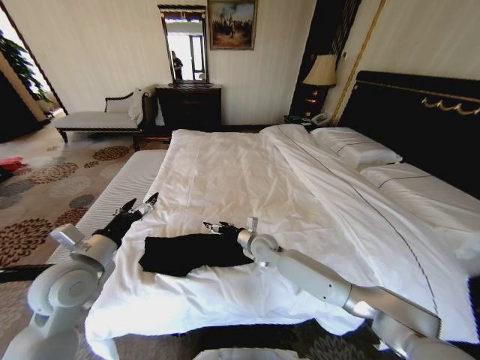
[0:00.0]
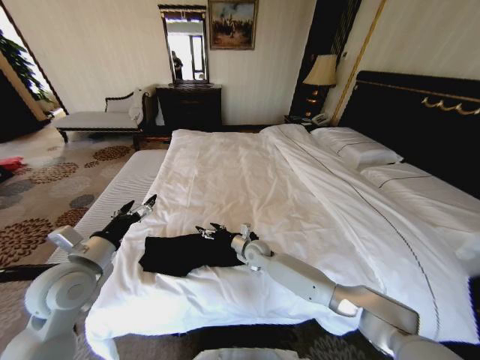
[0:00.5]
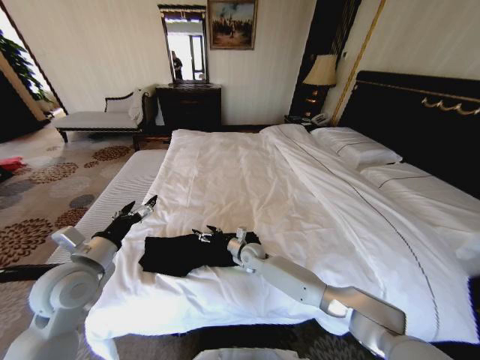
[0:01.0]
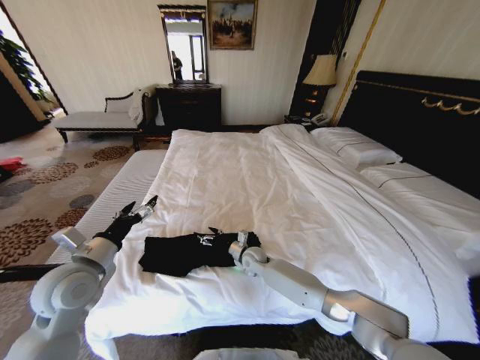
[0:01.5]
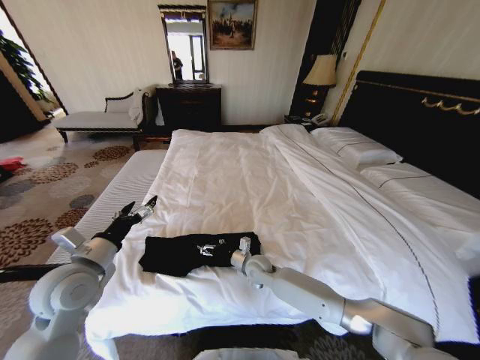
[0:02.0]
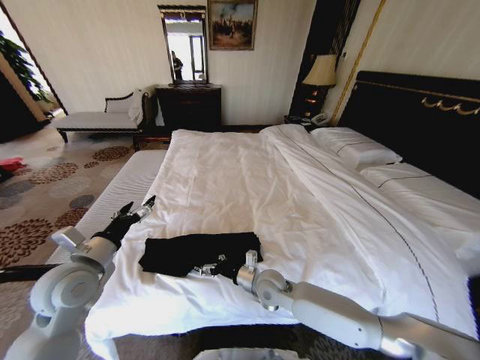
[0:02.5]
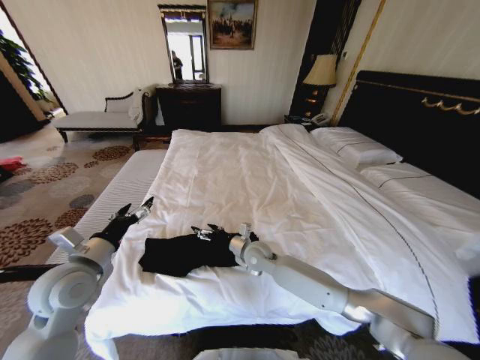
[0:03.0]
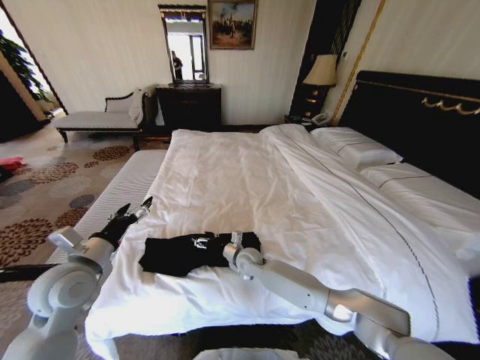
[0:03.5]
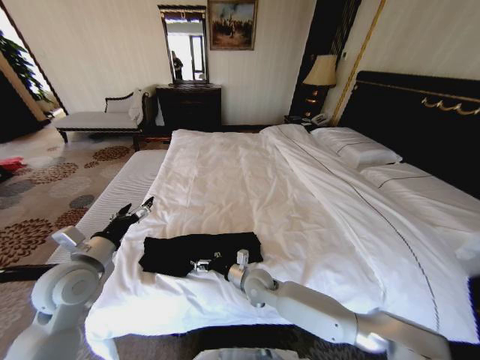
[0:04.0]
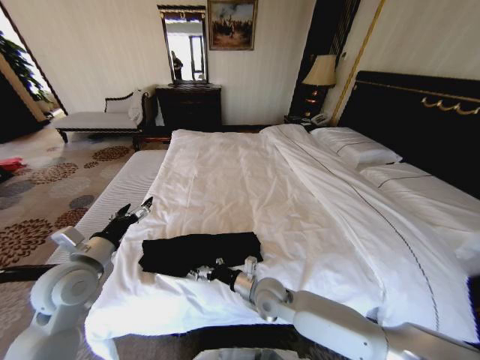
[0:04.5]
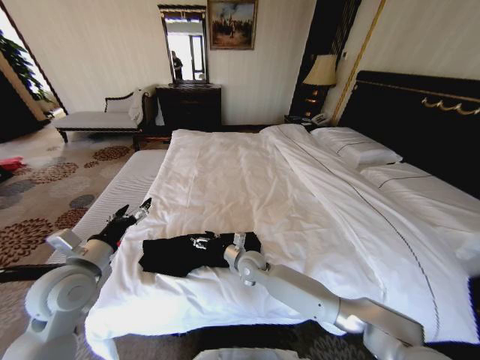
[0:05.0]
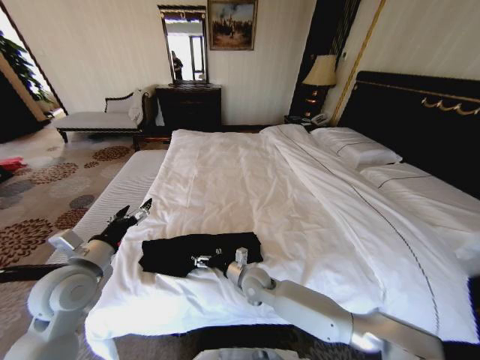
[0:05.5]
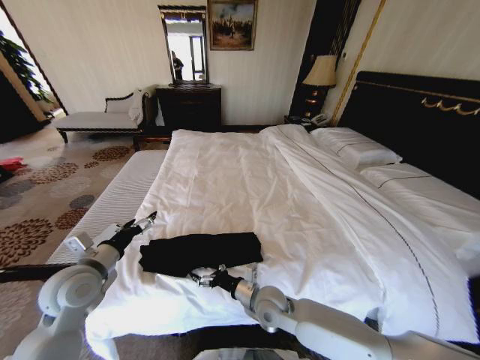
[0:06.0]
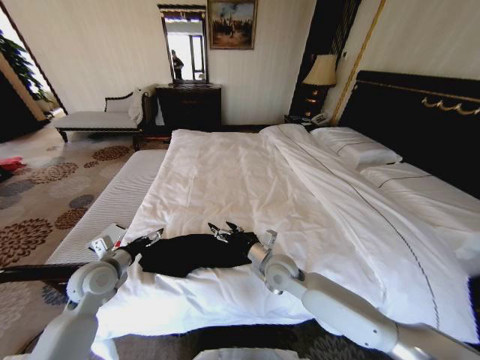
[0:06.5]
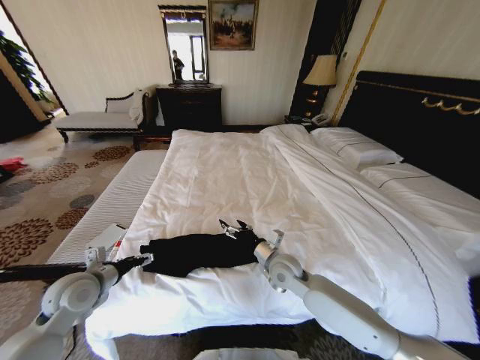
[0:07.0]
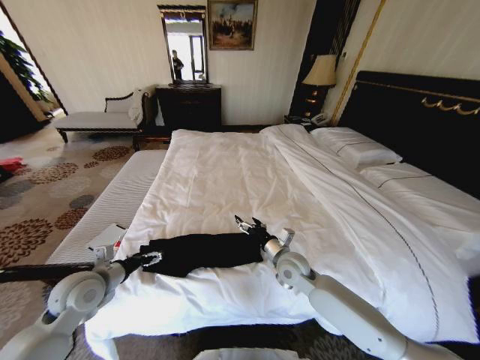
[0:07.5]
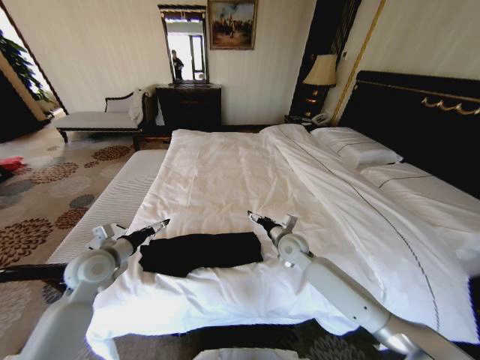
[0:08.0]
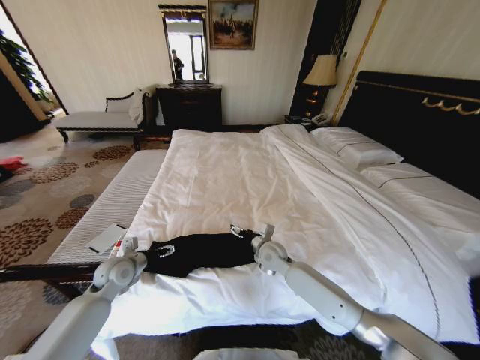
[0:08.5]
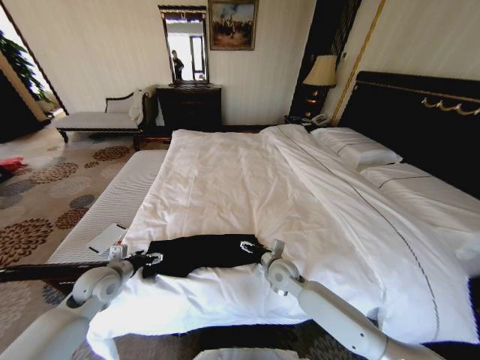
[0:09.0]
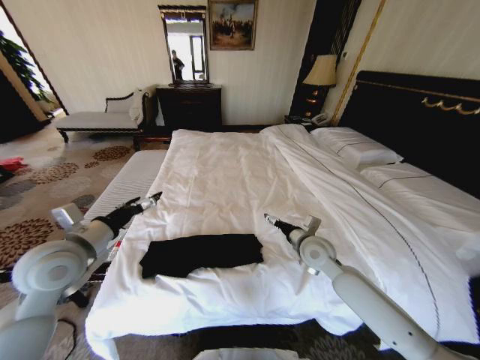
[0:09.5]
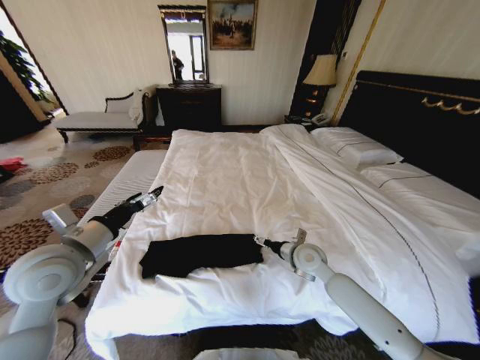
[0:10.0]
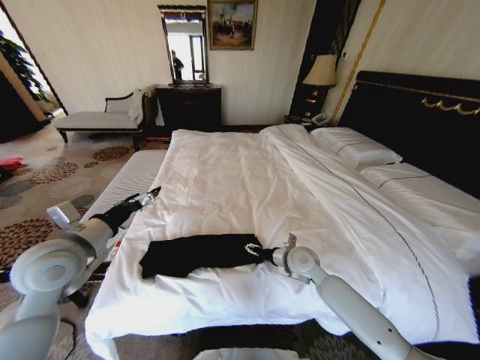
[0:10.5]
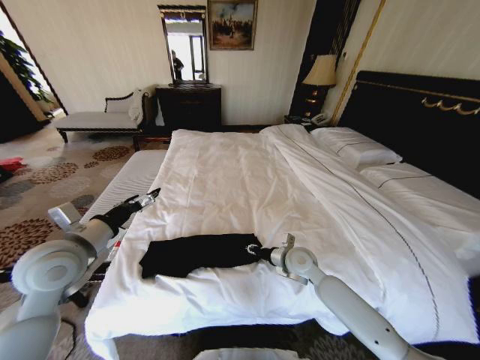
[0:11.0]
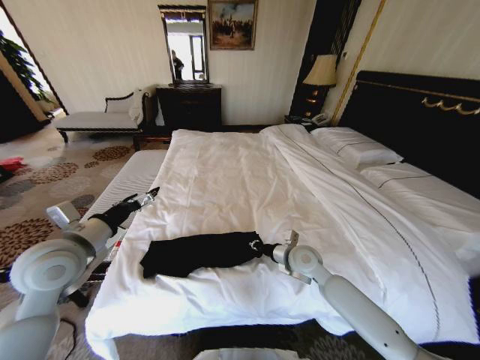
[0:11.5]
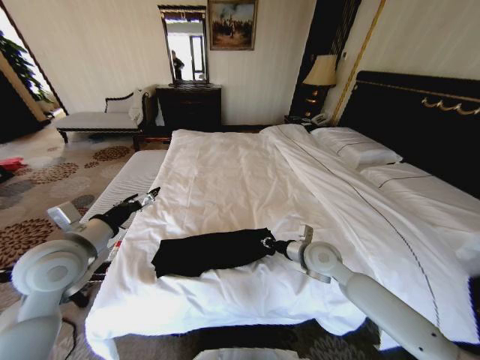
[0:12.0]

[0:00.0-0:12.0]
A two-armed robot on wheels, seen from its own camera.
Task of the whole recording: Fold the clothes on the bed.
0:00.0 to 0:02.0: The right gripper shifts roughly 5 cm downward.
0:02.0 to 0:04.0: The right gripper moves forward and backward over roughly 10 cm, changing direction 2 times.
0:04.0 to 0:06.0: The right gripper swings forward and backward, roughly 10 cm each way, with 2 reversals.
0:06.0 to 0:08.0: The right gripper heads forward and to the right, covering roughly 20 cm; the left gripper goes roughly 5 cm forward.
0:08.0 to 0:10.0: The right gripper reaches about 5 cm to the left, then returns. Meanwhile the left gripper travels upward and backward by some 15 cm.
0:10.0 to 0:12.0: The right gripper closes up.

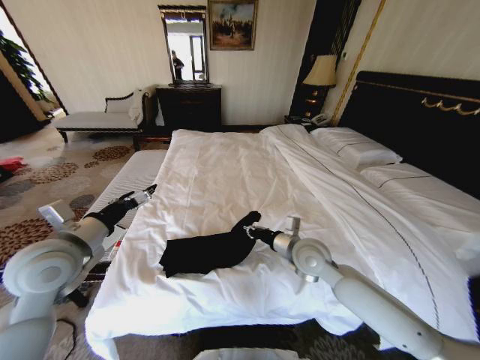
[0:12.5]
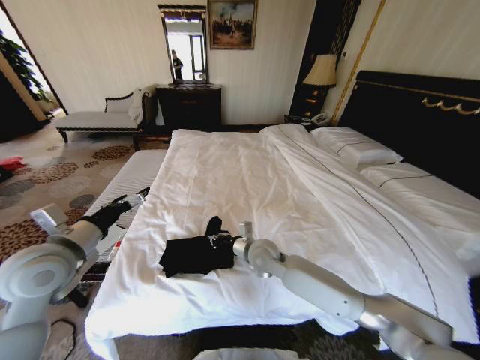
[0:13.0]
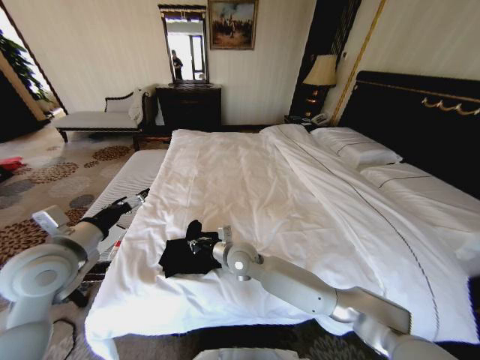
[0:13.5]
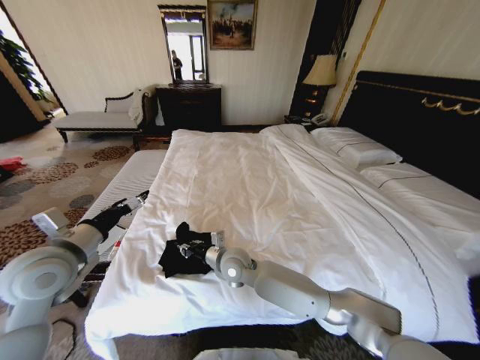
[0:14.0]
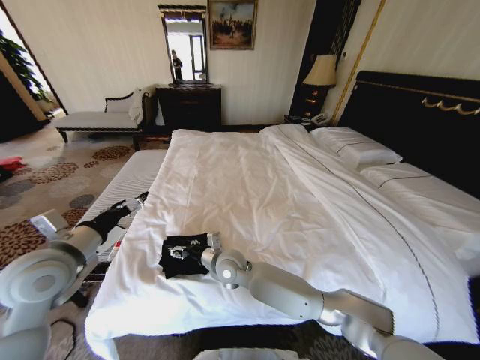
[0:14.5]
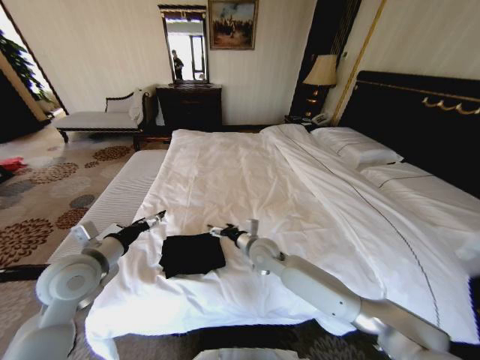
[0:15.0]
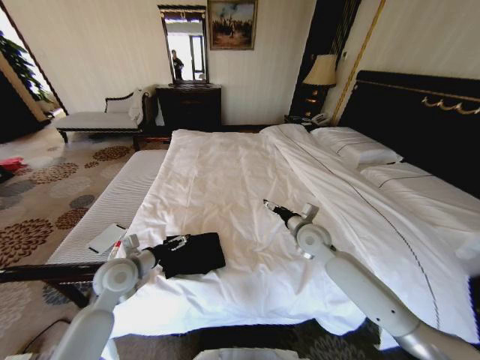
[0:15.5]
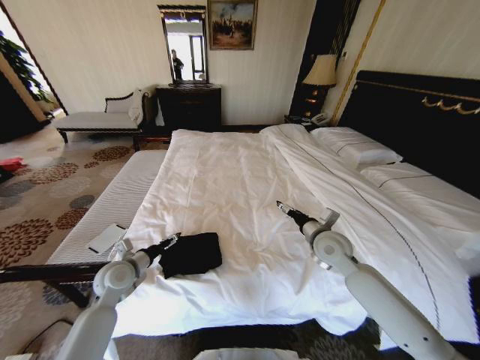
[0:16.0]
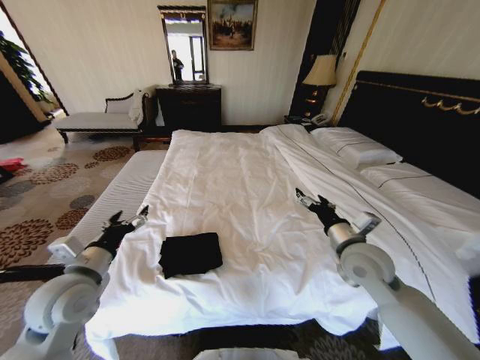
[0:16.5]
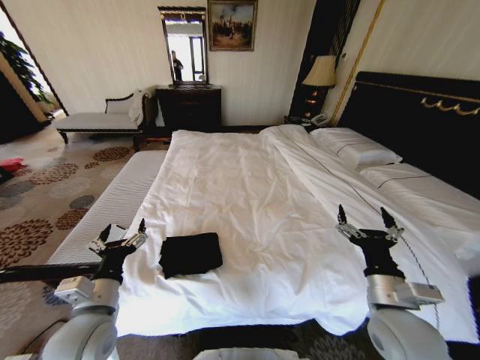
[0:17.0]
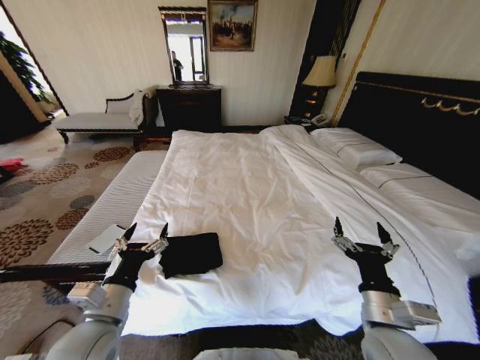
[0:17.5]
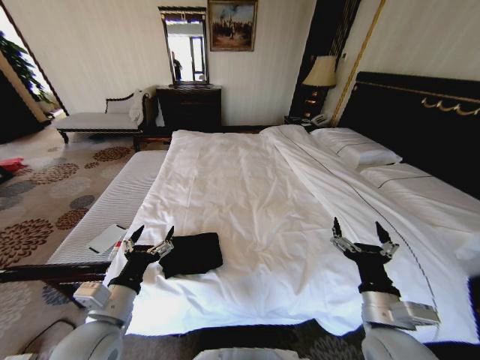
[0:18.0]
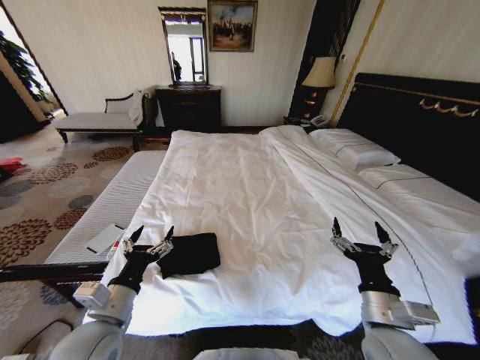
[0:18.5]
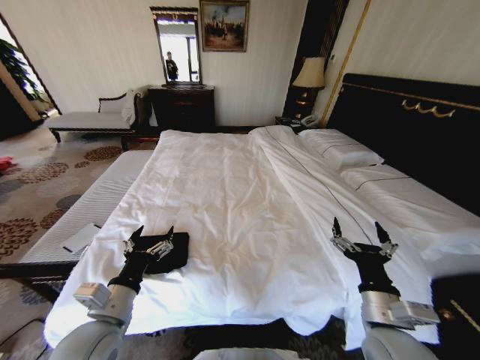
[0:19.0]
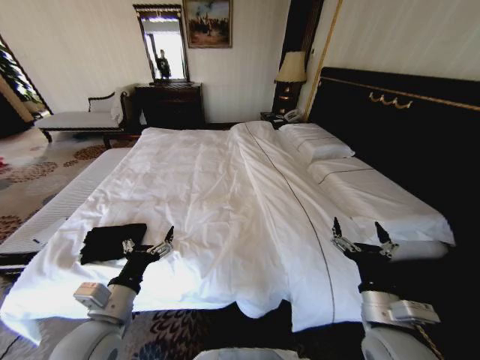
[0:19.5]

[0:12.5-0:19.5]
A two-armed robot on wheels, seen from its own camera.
Task of the whole recording: Fold the clothes on the bed.
0:12.5 to 0:14.5: The right gripper moves to the left, approximately 20 cm, and opens up.
0:14.5 to 0:16.0: The right gripper heads to the right, covering some 30 cm. The left gripper heads downward, covering approximately 20 cm.
0:16.0 to 0:17.5: The right gripper travels backward by roughly 25 cm, while the left gripper goes some 20 cm backward and upward.

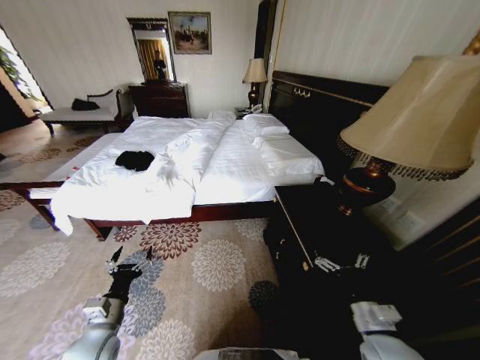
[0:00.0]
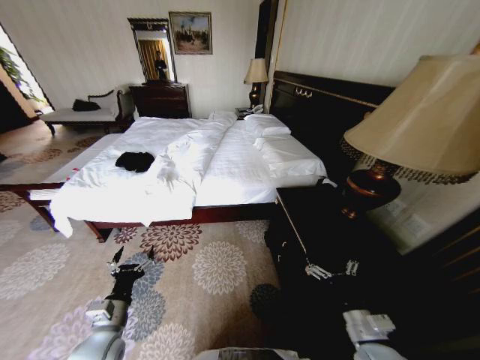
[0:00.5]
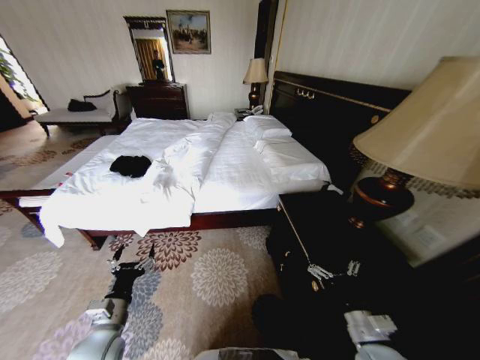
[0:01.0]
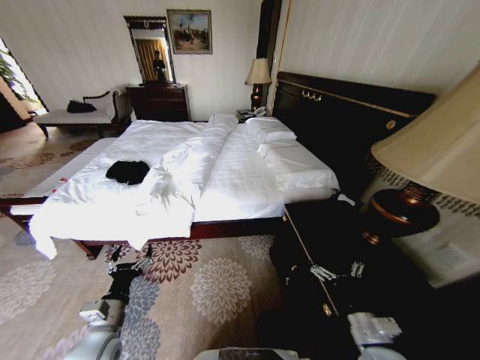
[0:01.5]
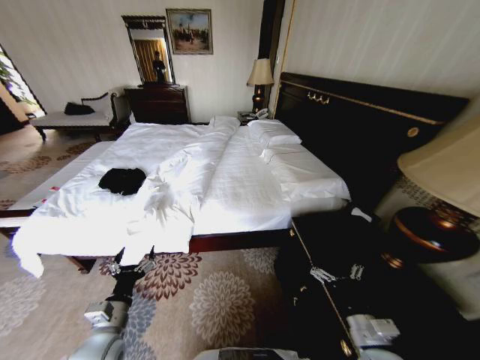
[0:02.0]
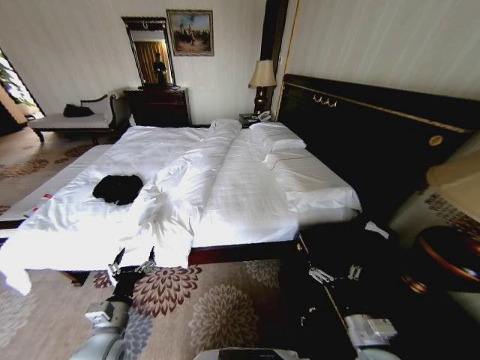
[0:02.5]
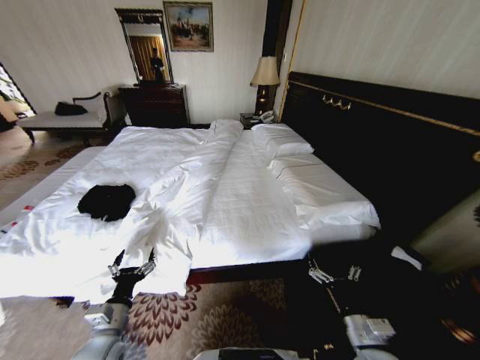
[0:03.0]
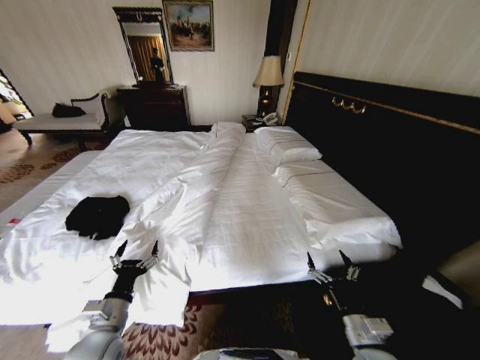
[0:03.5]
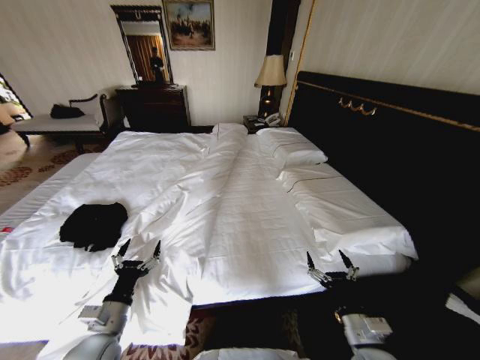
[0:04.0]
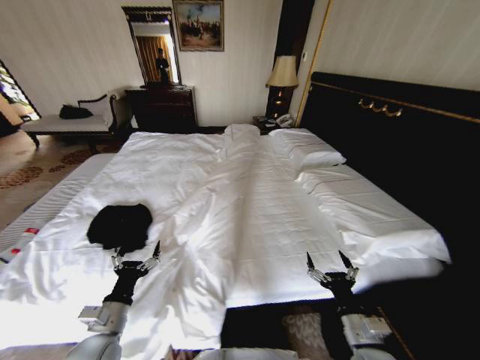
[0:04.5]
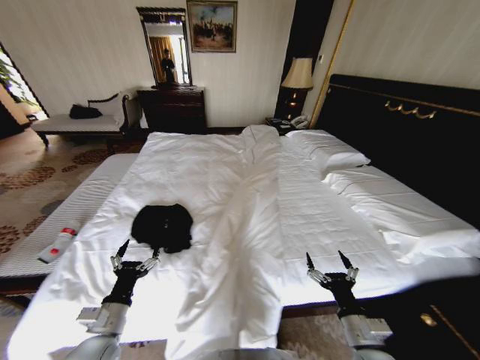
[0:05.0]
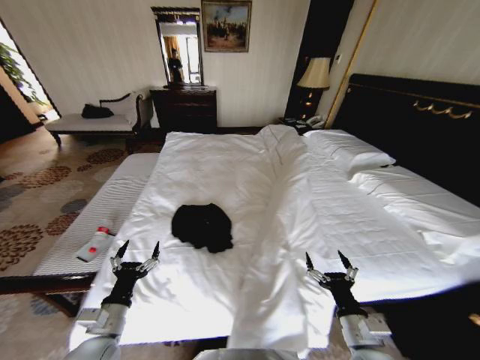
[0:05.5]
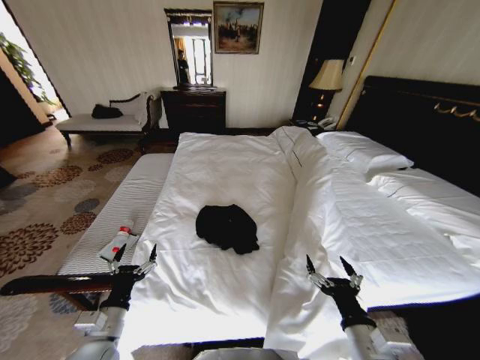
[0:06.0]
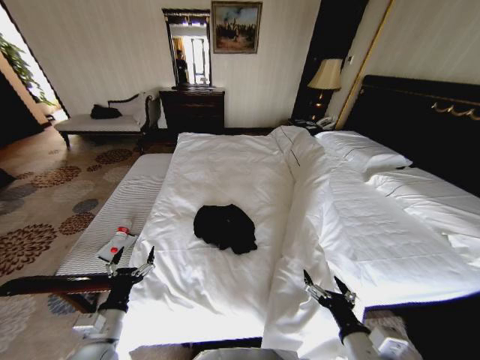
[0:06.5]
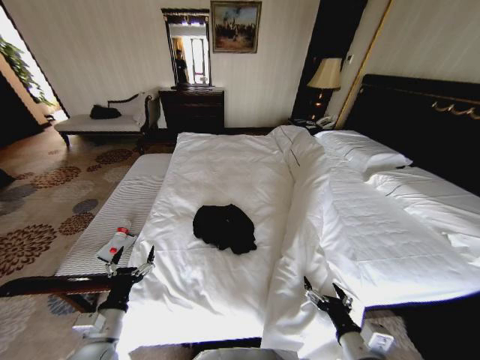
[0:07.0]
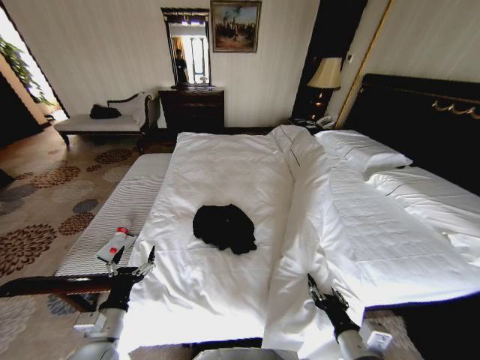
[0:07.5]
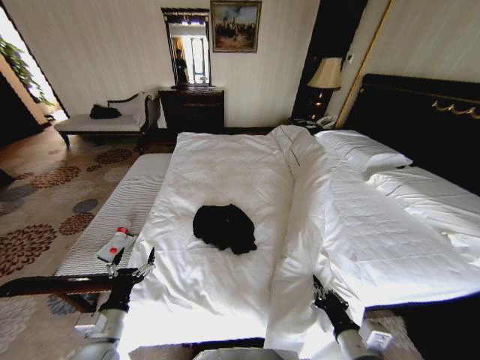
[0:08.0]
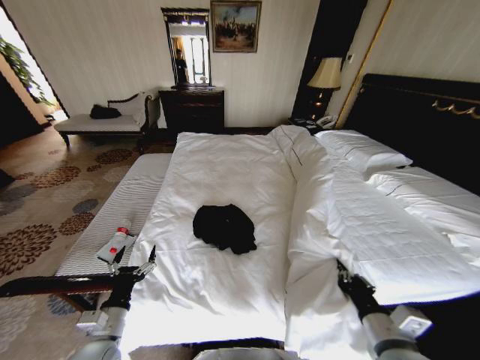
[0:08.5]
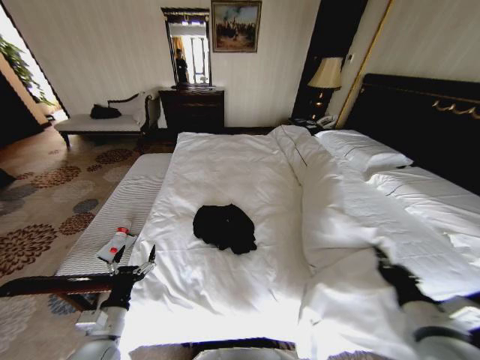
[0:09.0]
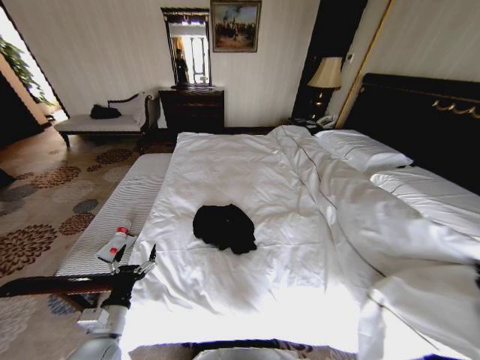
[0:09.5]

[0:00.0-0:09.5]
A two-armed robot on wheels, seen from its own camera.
Task of the whole recording: Fold the clothes on the bed.
0:05.5 to 0:07.5: The right gripper closes up.
0:07.5 to 0:09.5: The right gripper shifts roughly 25 cm to the right, and closes up.
